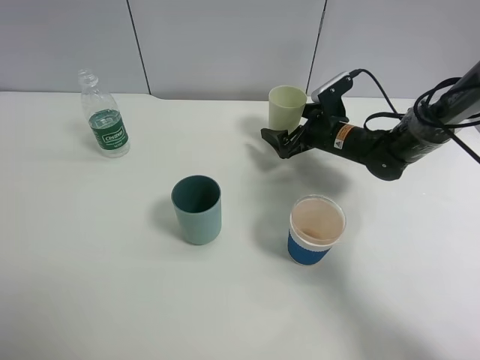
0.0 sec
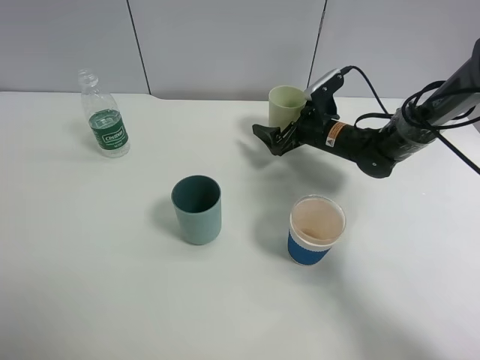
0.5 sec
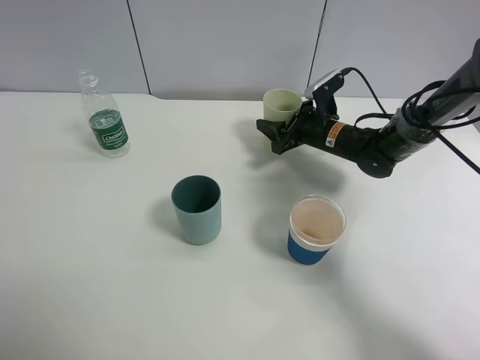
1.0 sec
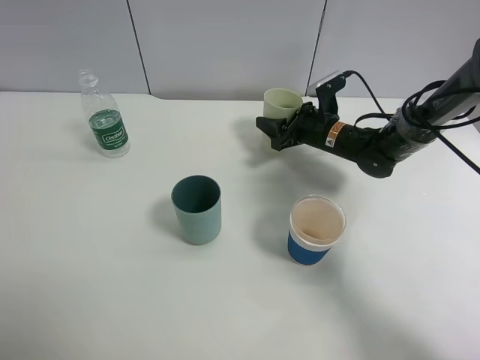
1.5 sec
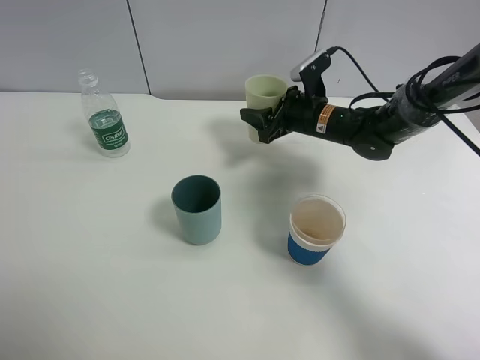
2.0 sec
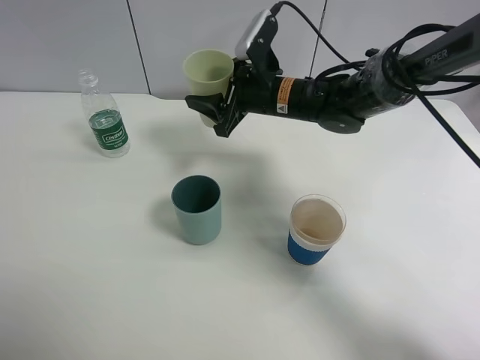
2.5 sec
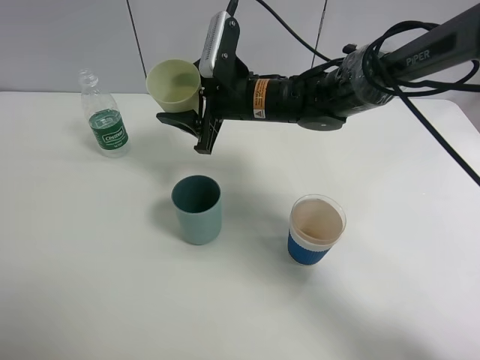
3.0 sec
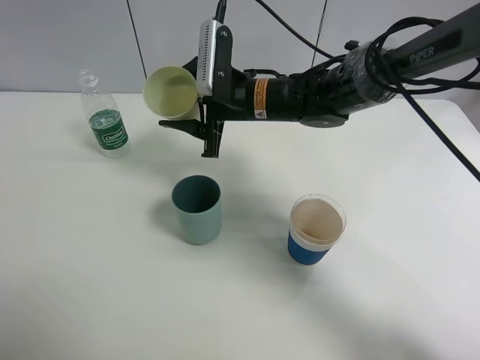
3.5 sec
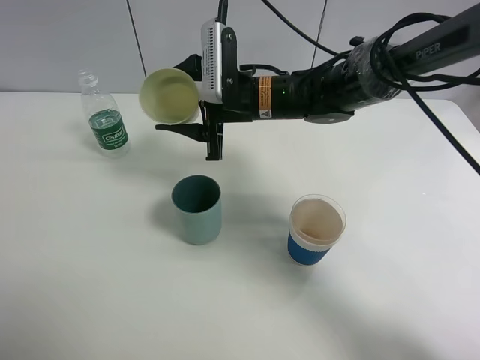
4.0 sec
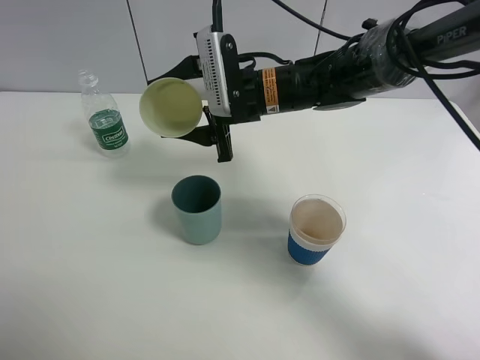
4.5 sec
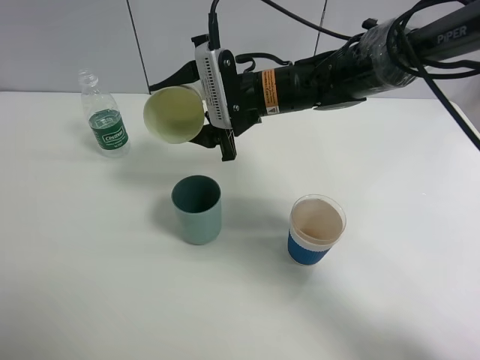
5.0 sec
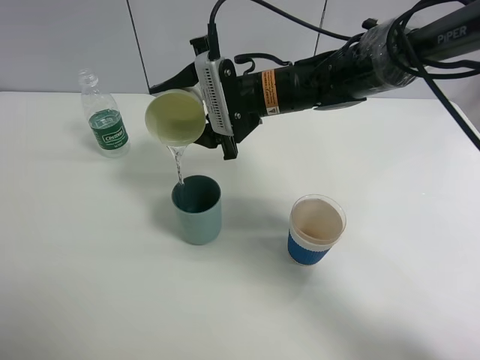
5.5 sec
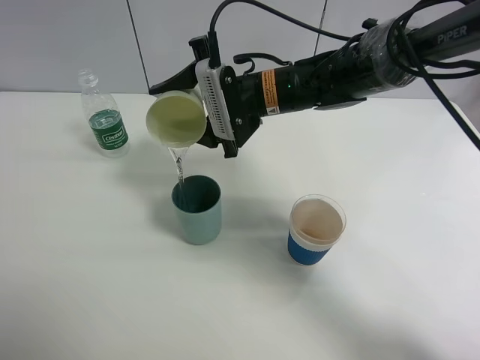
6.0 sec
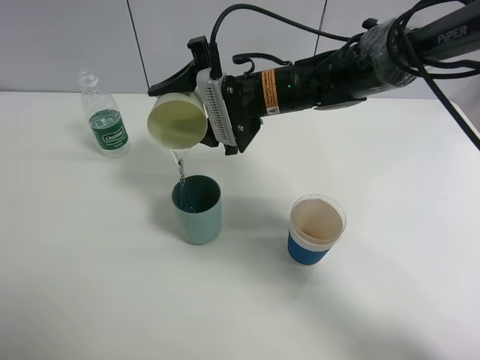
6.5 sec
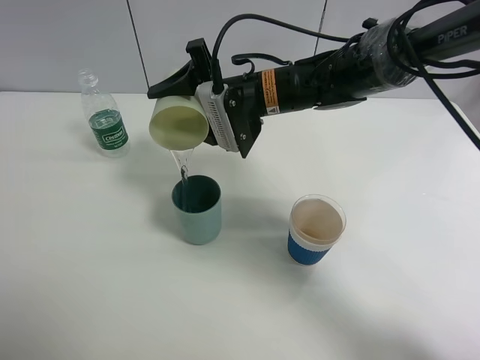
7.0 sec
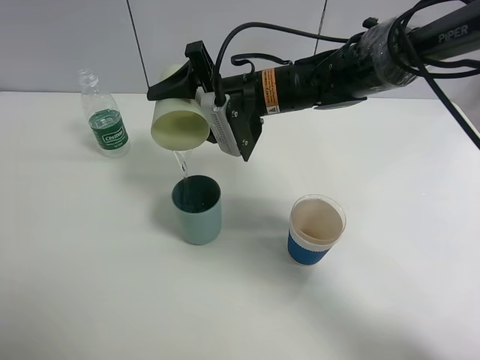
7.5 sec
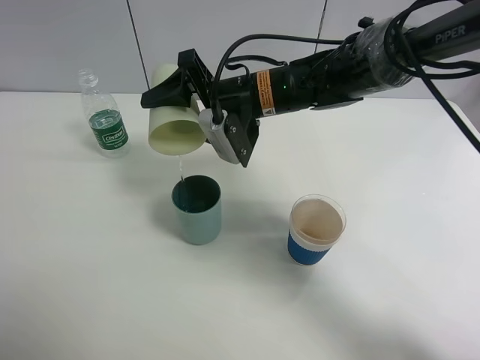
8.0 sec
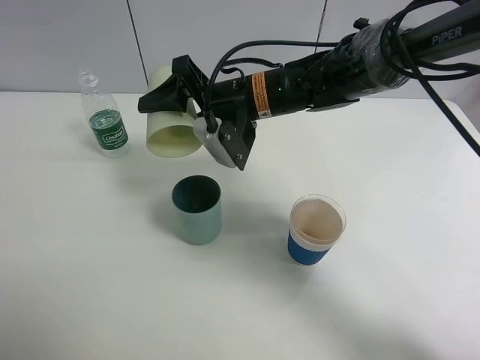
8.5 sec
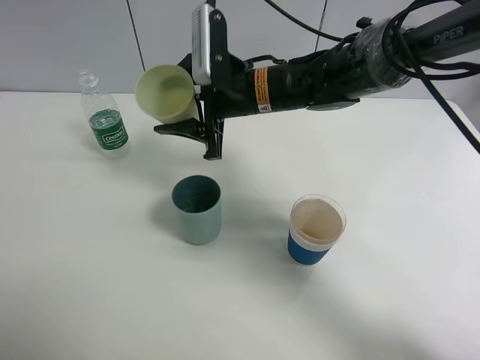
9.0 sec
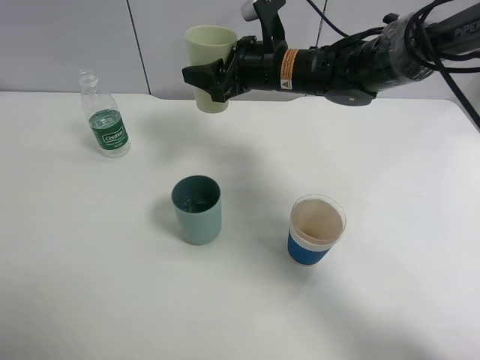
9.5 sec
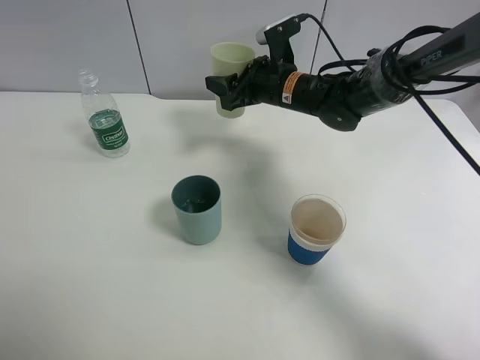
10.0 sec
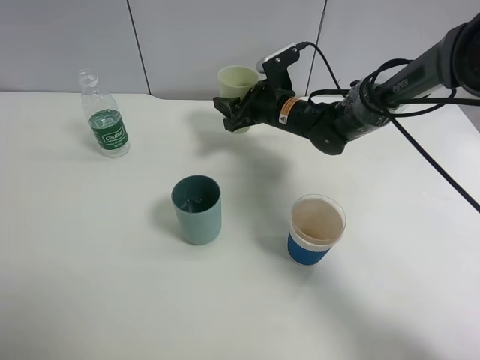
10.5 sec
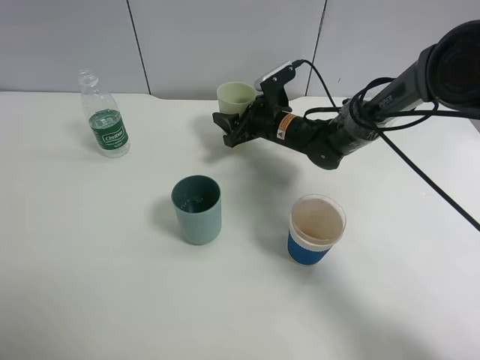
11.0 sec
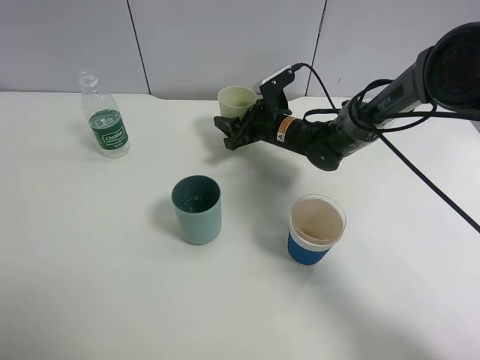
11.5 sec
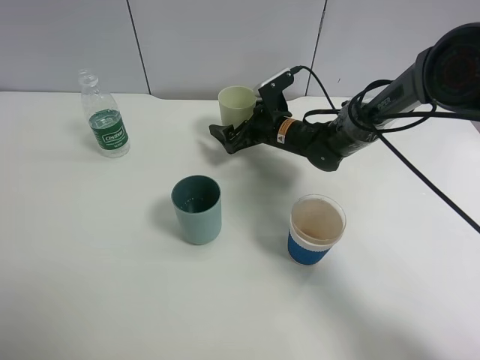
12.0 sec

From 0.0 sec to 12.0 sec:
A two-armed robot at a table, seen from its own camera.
Task of the whole recording: use a clamp to hold the bottle of the drink, pour the beverage into a random cup, then clamp the cup containing the drink and pour the drink into another random cup.
Step, from 2.0 sec to 8.5 sec: Pour water into the blue plastic cup with right gripper.
From 0.0 sec to 2.0 sec: The right gripper moves approximately 5 cm, and closes its fingers.
From 2.0 sec to 4.0 sec: The right gripper goes approximately 15 cm to the left, upward and backward.
From 8.0 sec to 10.0 sec: The right gripper shifts about 10 cm forward and to the right.
From 10.0 sec to 12.0 sec: The right gripper shifts roughly 10 cm downward, and opens up.

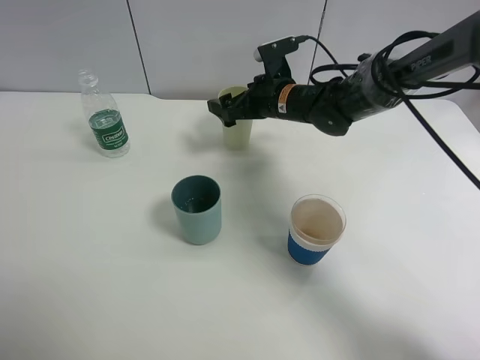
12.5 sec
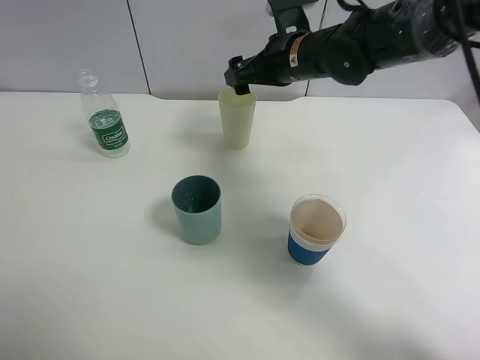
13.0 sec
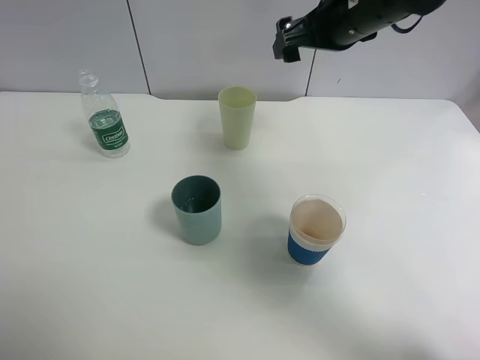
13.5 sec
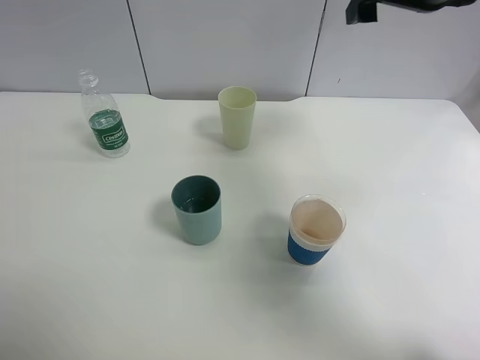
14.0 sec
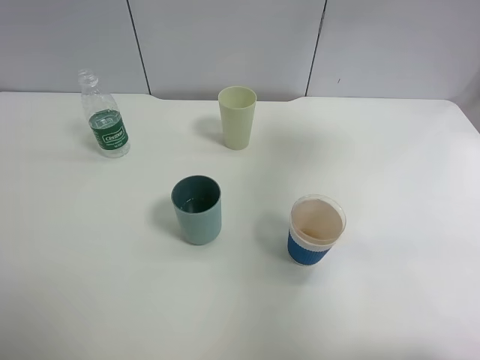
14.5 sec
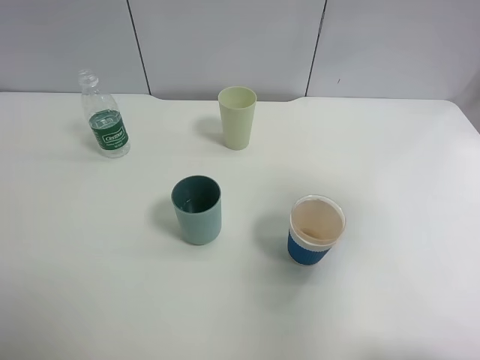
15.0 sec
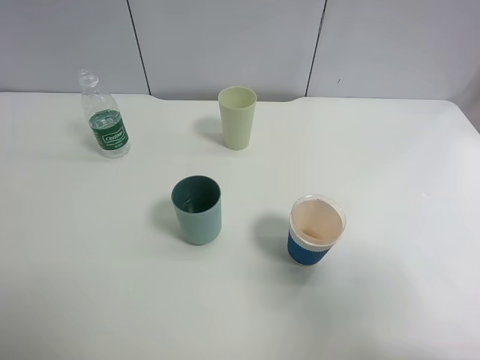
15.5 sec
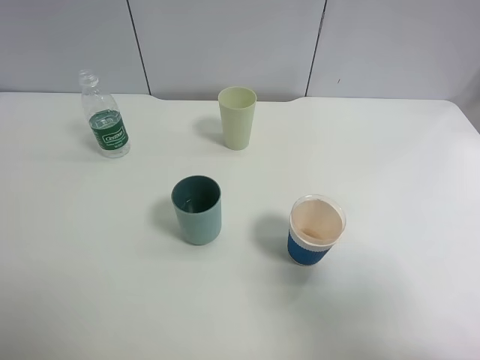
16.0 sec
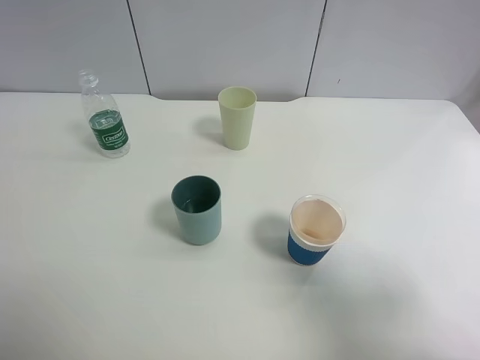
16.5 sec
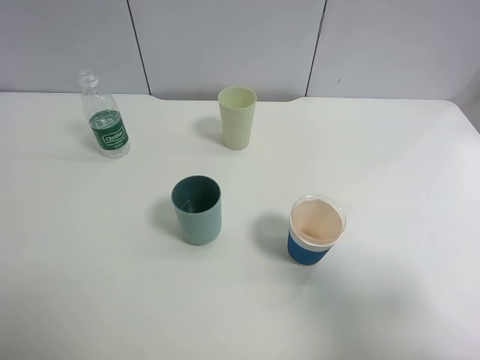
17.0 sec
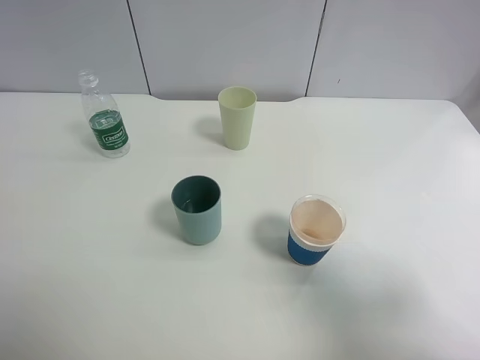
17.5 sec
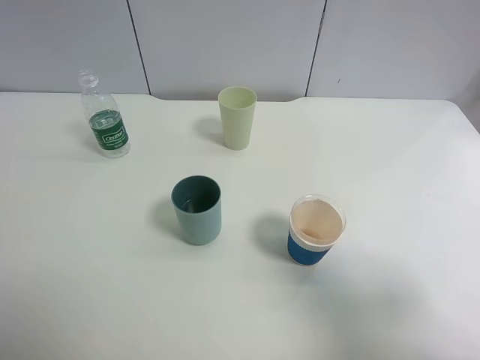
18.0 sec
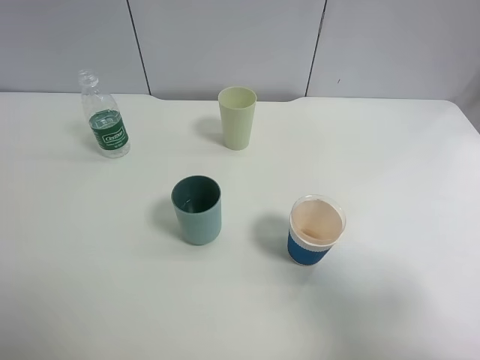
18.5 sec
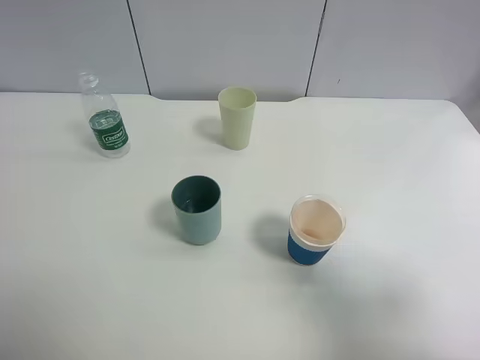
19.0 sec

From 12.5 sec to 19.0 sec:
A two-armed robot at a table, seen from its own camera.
Task of the whole recording: use a clamp to hold the bottle of the drink, pour the beverage into a random cup, then clamp the cup containing the drink and pour the drink into another random cup.
From 12.5 sec to 14.5 sec: The right gripper moves upward, to the right and backward, approximately 40 cm.
From 14.5 sec to 17.0 sec: The right gripper heads backward and downward, covering approximately 25 cm.
From 17.0 sec to 19.0 sec: The two grippers keep their place.
